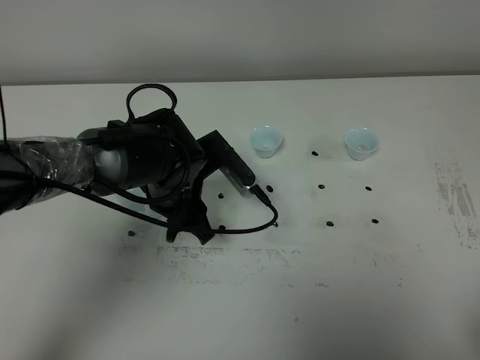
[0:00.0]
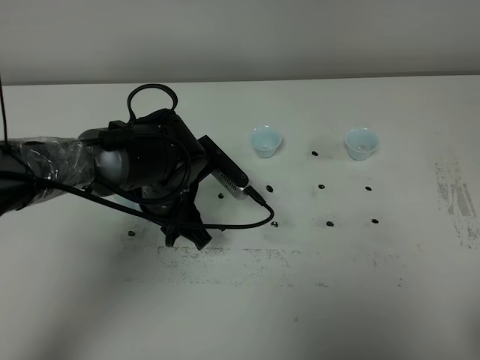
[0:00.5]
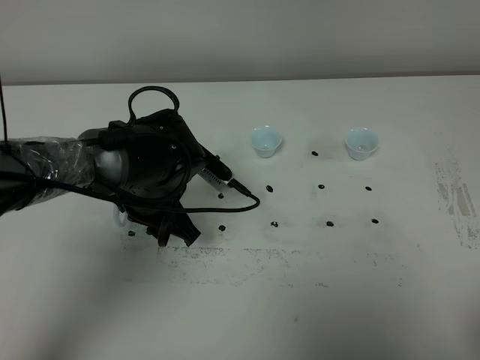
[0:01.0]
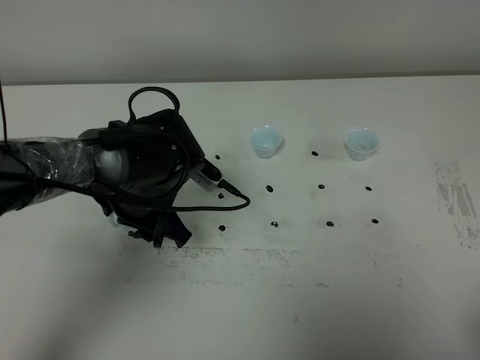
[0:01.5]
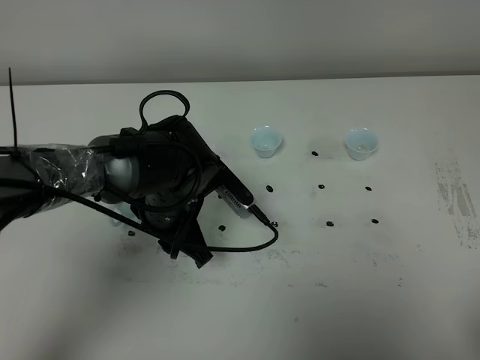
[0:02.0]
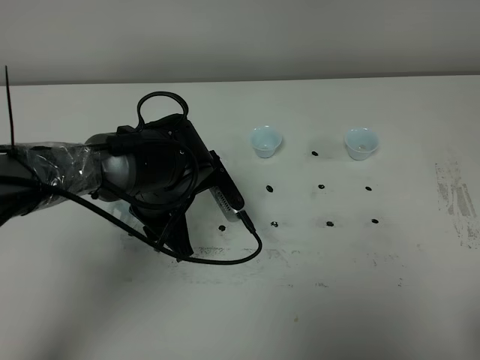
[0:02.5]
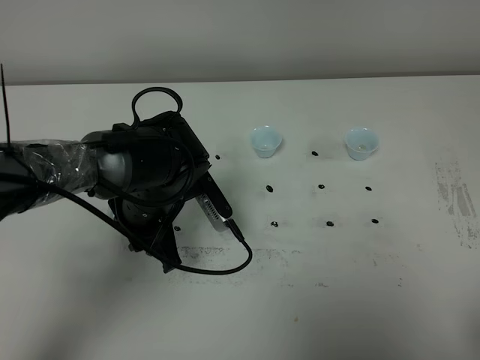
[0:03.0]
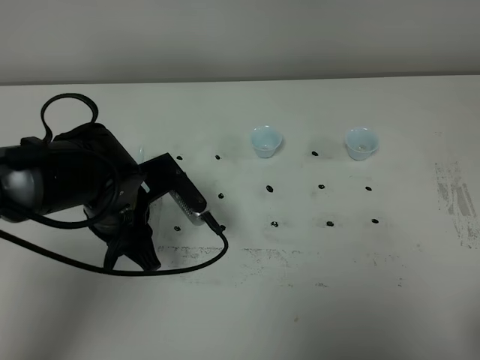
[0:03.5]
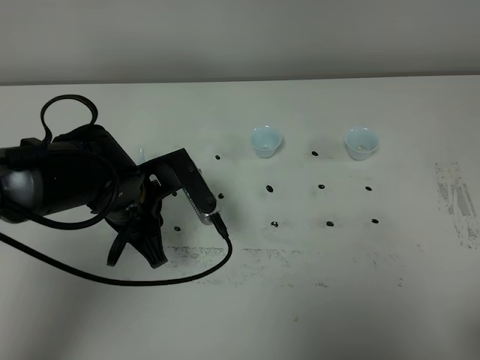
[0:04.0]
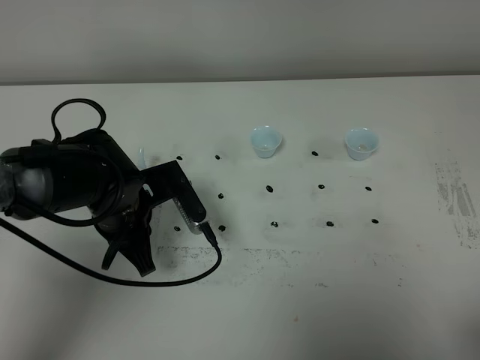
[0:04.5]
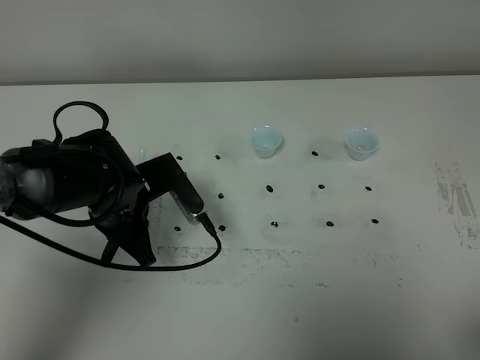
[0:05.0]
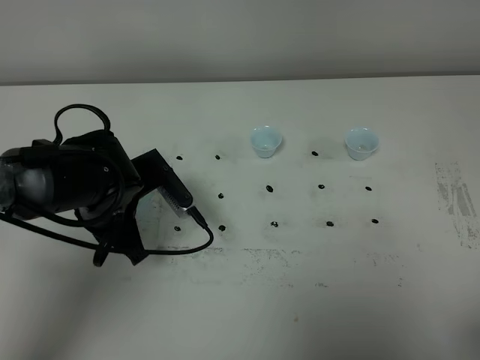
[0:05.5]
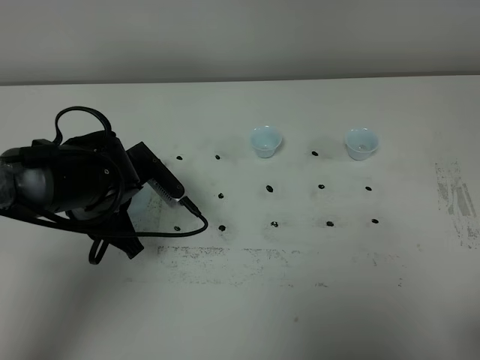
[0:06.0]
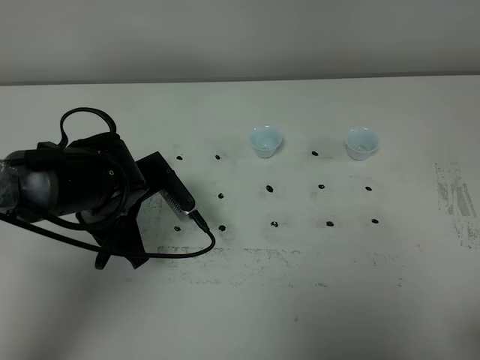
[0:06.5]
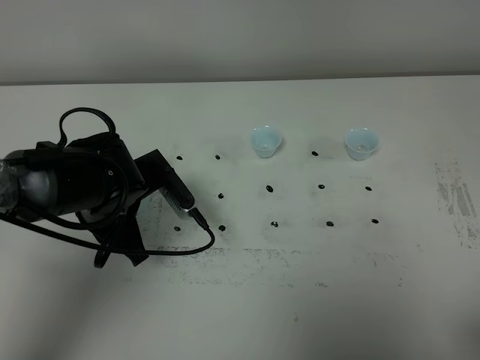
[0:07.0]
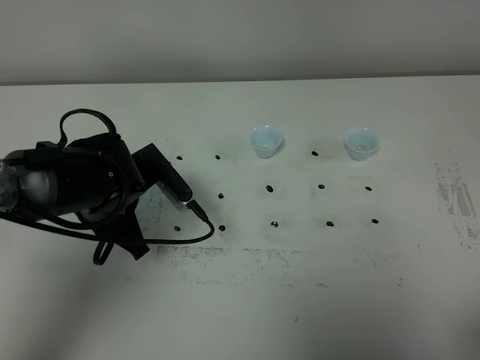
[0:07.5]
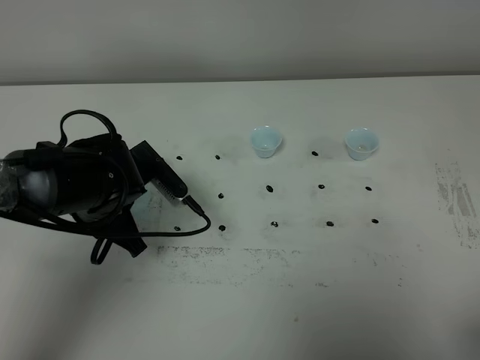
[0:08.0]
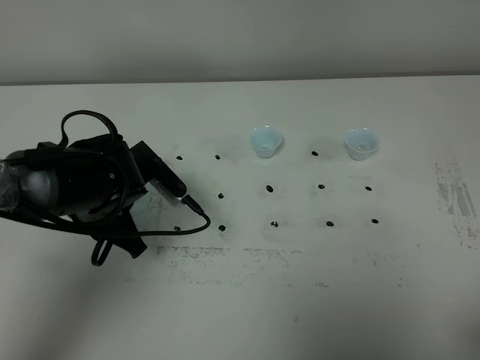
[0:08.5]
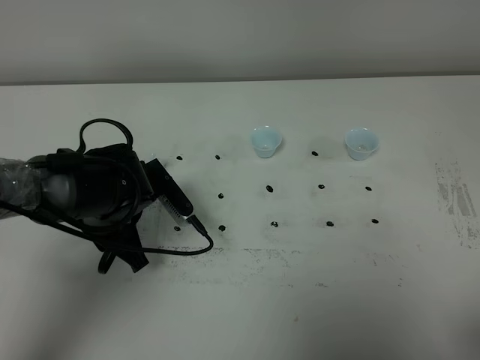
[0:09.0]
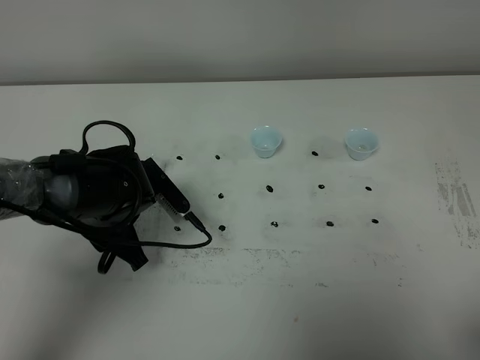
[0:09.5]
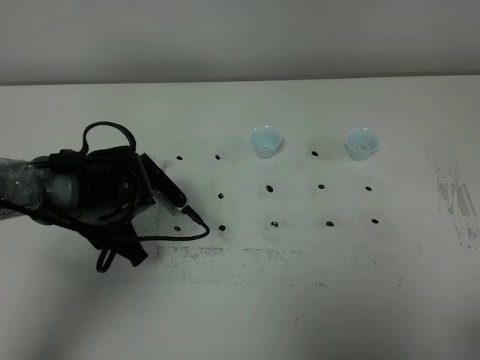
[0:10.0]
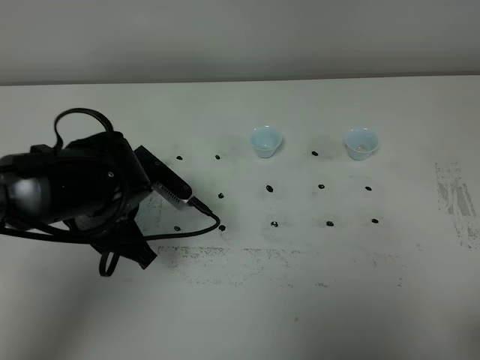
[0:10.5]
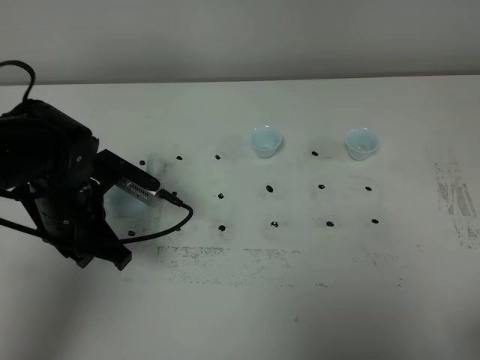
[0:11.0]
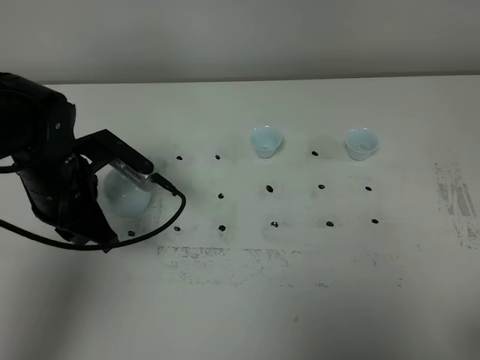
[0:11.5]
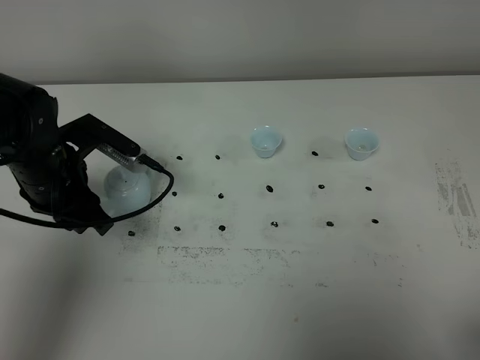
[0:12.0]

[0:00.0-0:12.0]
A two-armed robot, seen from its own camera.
Task of the whole recording: grasp the blue porcelain teapot and pour the tea into the two blue porcelain teacups one by one, put the blue porcelain teapot back in its original place.
0:02.0 to 0:04.0: The left gripper shifts some 5 cm to the left.
0:06.0 to 0:10.0: The grippers move only a little.
0:10.0 to 0:12.0: The left gripper travels upward and to the left by some 10 cm.

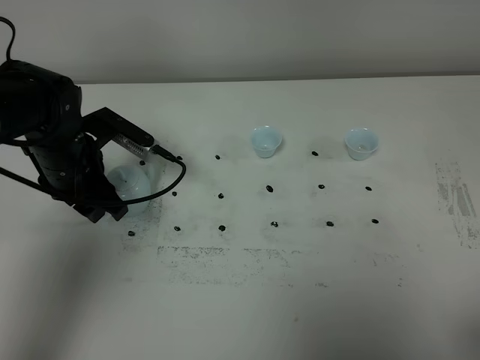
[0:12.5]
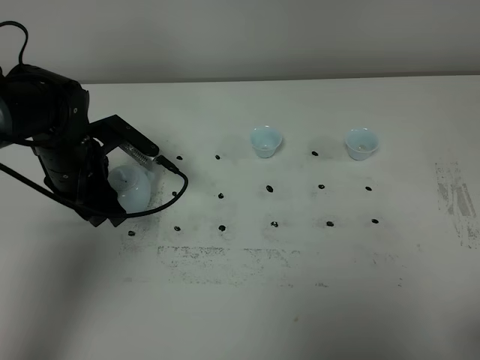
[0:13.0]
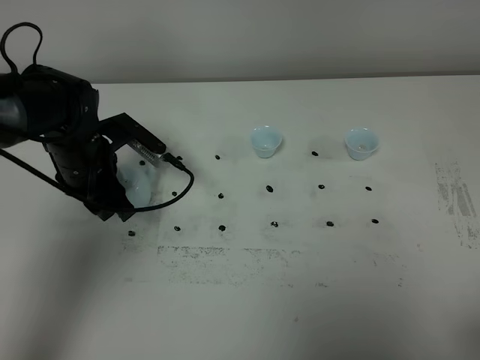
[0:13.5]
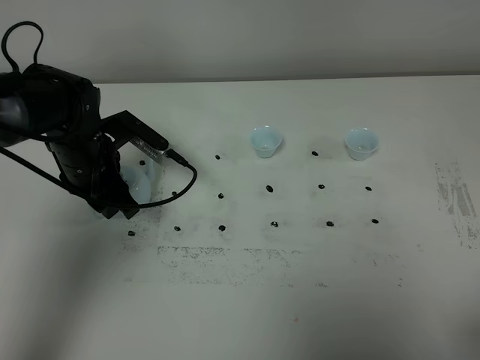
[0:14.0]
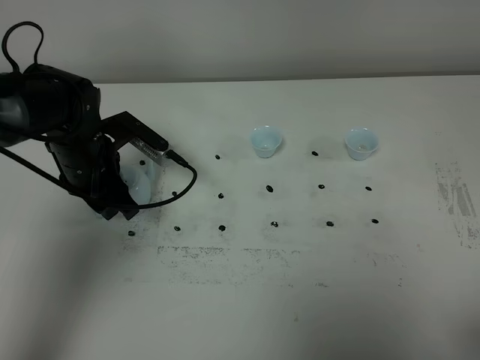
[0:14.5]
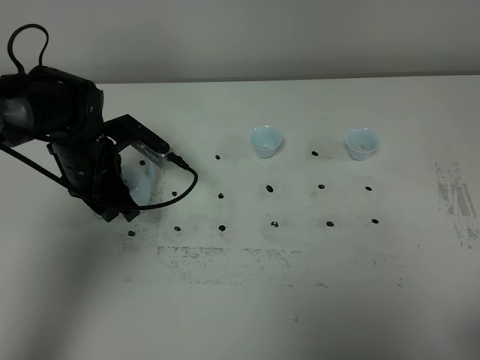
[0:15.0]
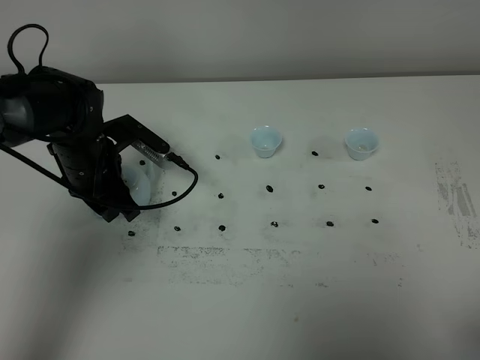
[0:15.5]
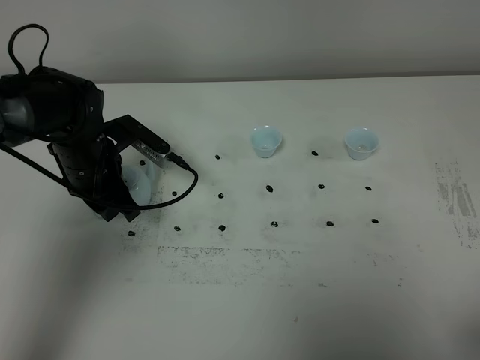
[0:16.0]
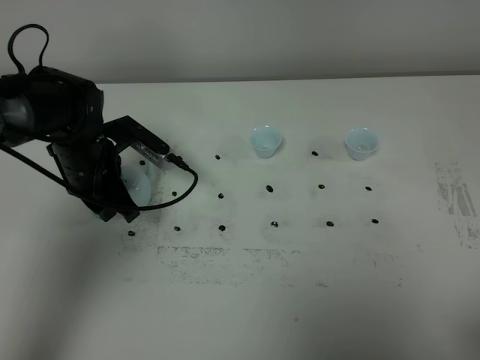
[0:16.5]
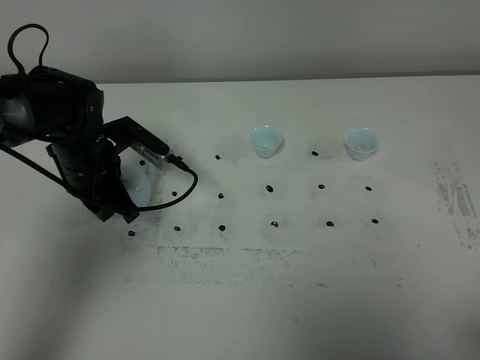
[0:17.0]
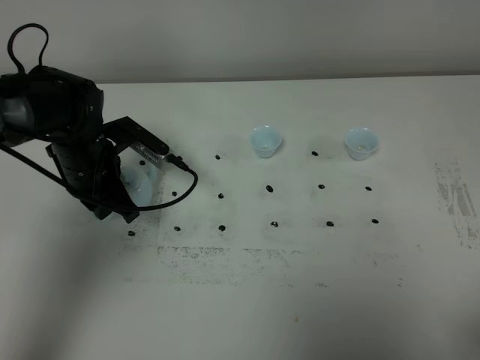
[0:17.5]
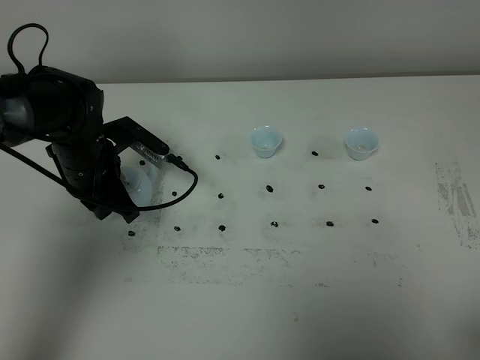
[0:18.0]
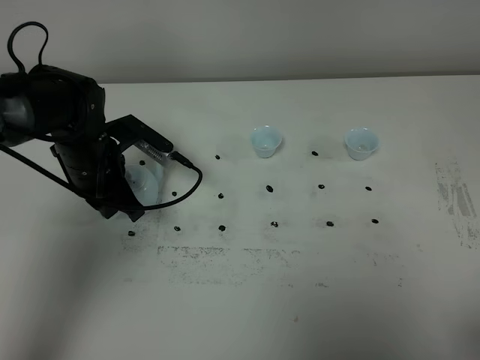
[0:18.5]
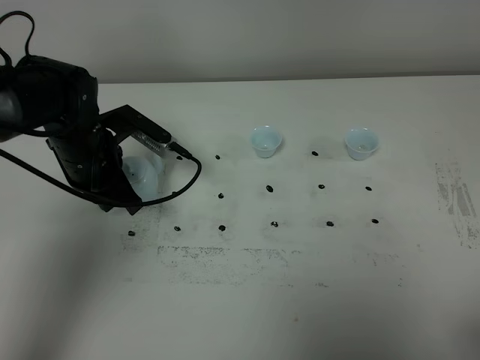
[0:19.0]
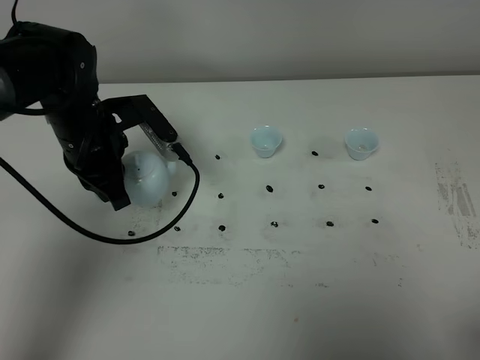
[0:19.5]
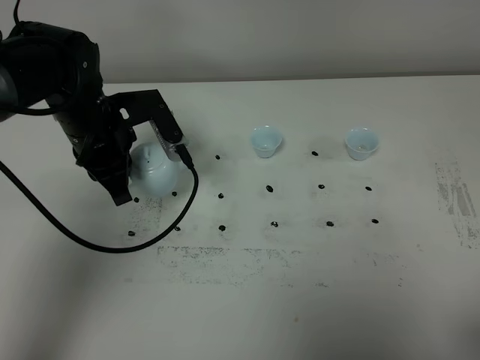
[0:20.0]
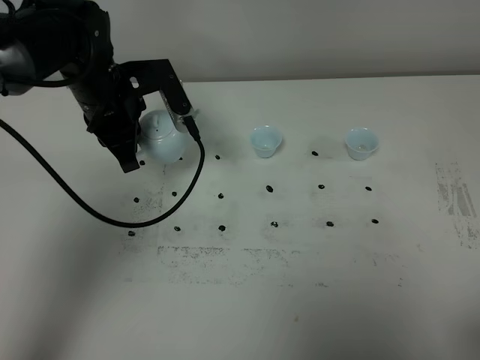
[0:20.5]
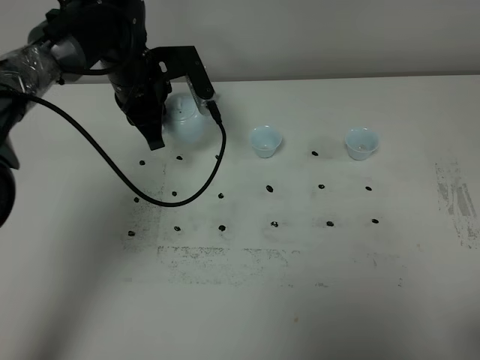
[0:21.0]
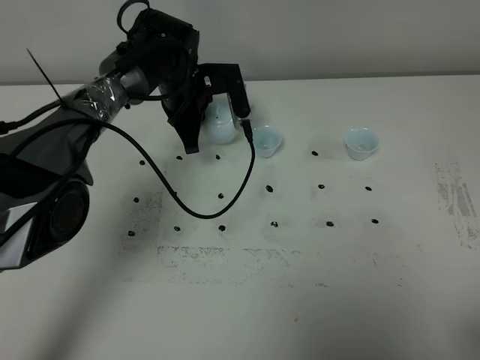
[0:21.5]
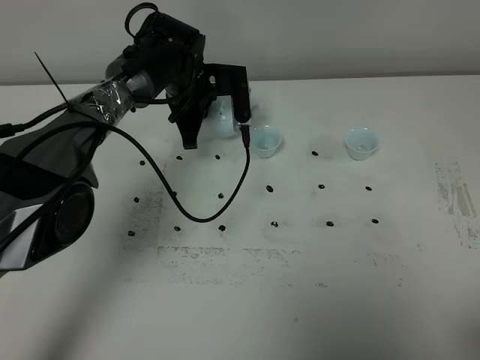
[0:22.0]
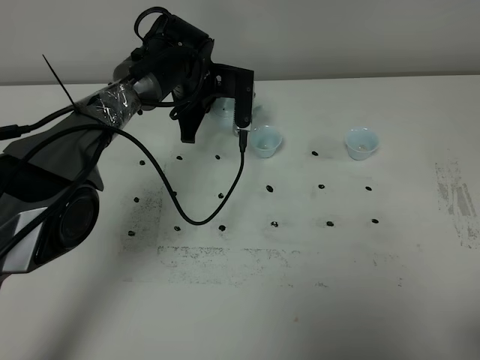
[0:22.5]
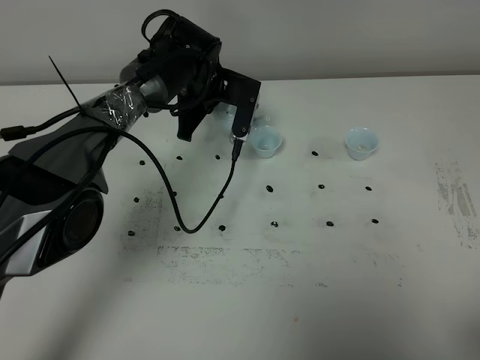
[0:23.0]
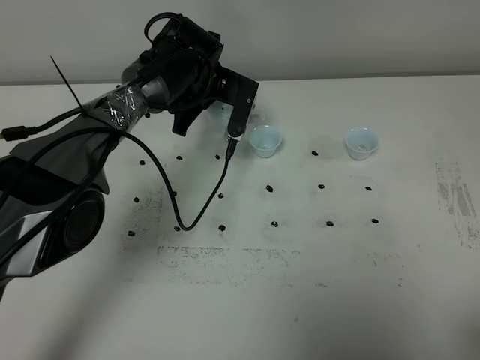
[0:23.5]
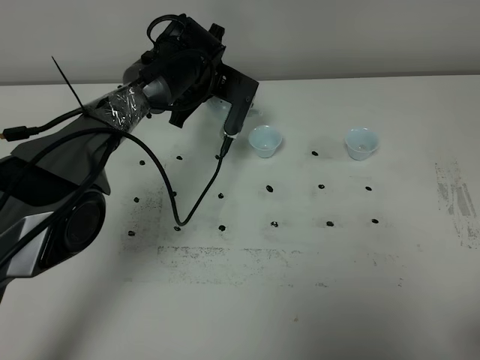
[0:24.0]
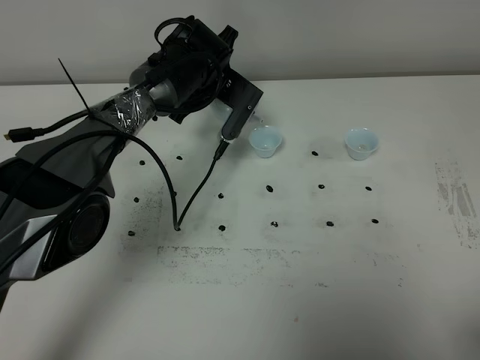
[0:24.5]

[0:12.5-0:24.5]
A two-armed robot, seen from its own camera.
Task of the whole recording: grasp the blue porcelain teapot and pour the tea into the two blue porcelain teacups one by one, put the blue porcelain teapot back in its original place.
Step, 0:12.5 to 0:19.0: Pick up the teapot with the left gripper.
0:12.5 to 0:14.5: The grippers move only a little.
0:14.5 to 0:18.5: Both grippers stay about where they are.
0:18.5 to 0:20.5: The left gripper is displaced upward by some 5 cm.
0:20.5 to 0:22.5: The left gripper is displaced forward, to the right and downward by approximately 15 cm.

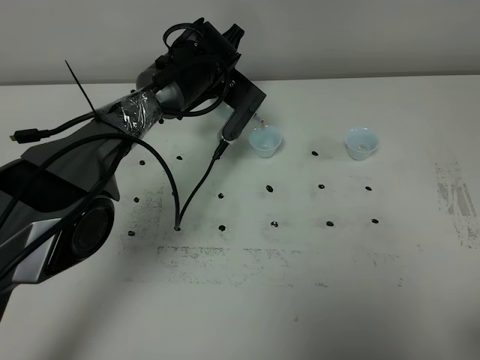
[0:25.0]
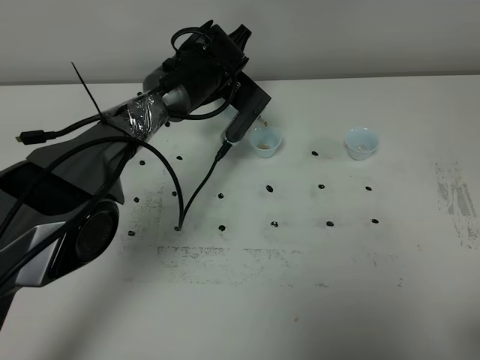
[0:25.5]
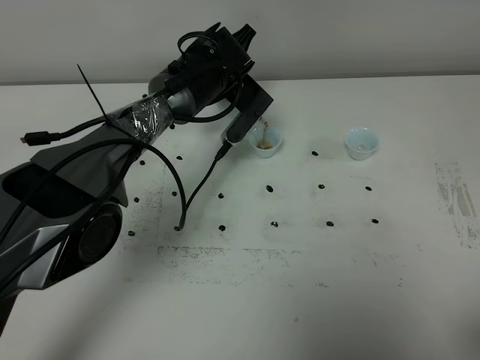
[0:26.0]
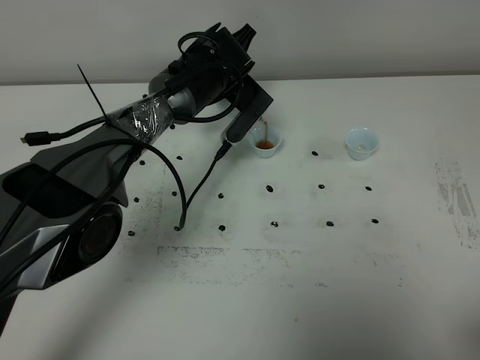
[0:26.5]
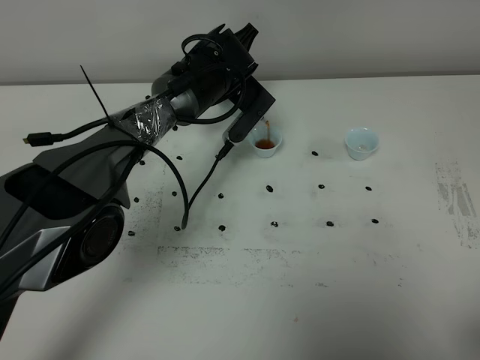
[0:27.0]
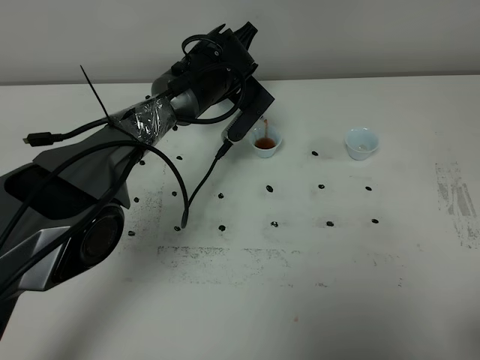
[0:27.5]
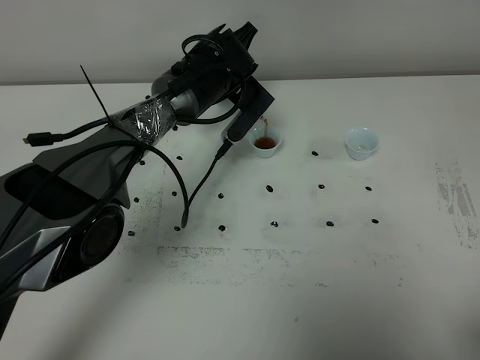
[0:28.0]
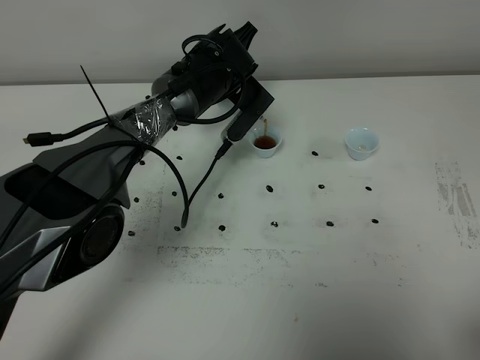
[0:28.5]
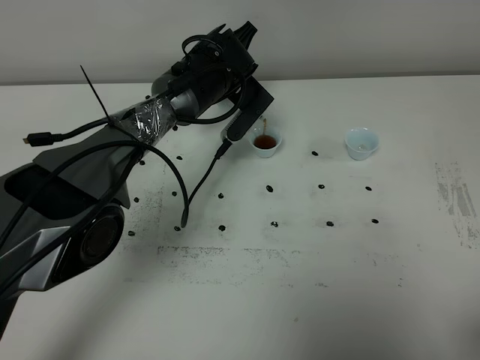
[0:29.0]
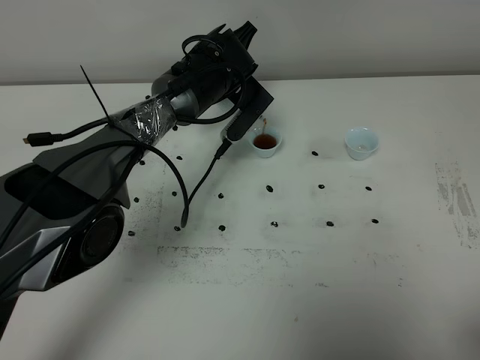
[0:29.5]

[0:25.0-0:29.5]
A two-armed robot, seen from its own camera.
Task of the whole recording: grasp the blue porcelain teapot and pour the tea into the two blue porcelain teacups one by one, put the blue porcelain teapot back in its original place.
0:25.0 to 0:27.0: The grippers stay close to where they were, moving slightly.
0:27.0 to 0:29.5: Neither gripper changes place.
